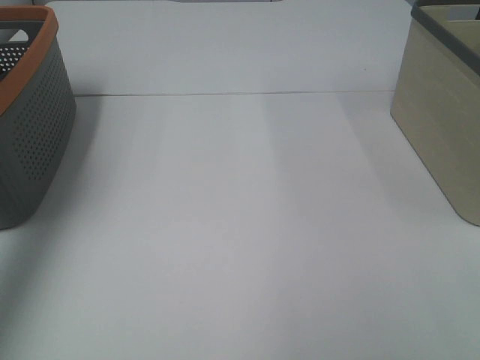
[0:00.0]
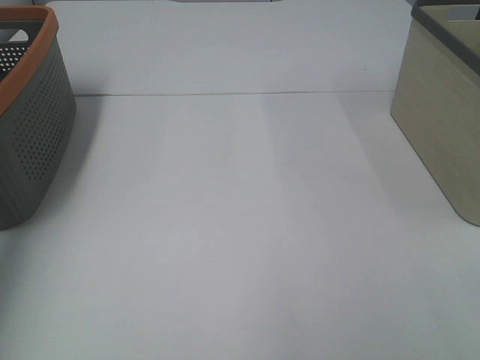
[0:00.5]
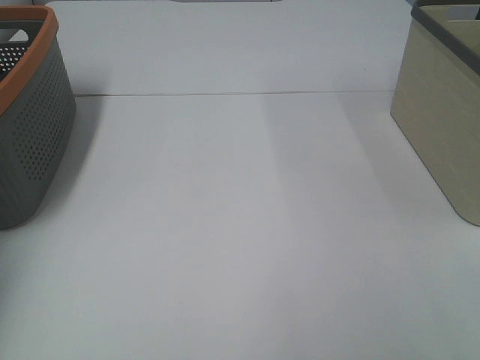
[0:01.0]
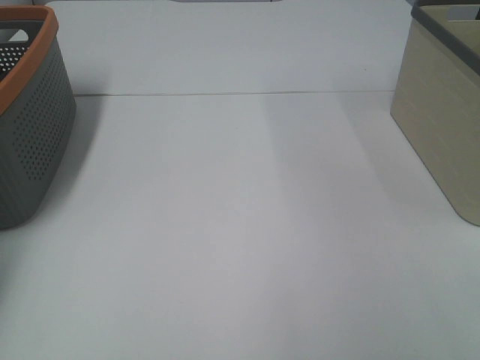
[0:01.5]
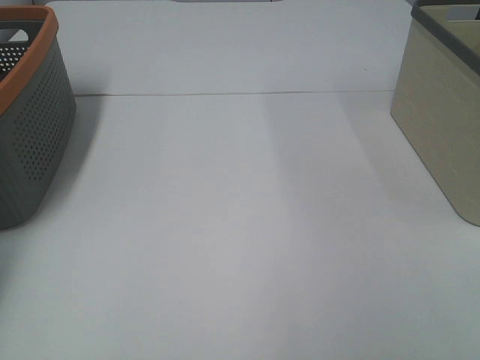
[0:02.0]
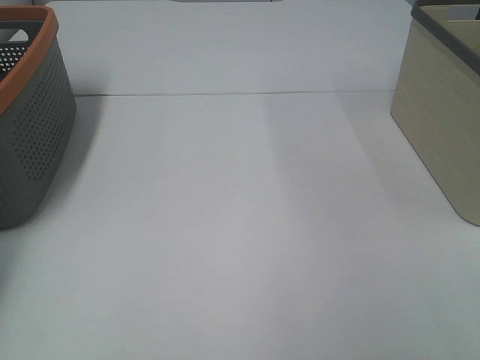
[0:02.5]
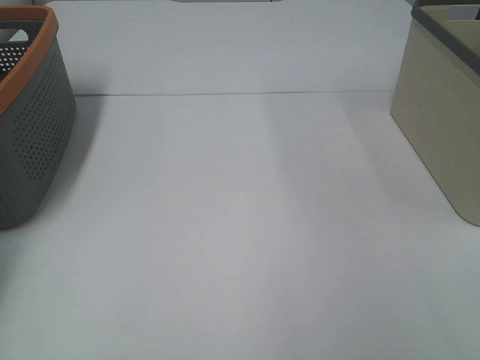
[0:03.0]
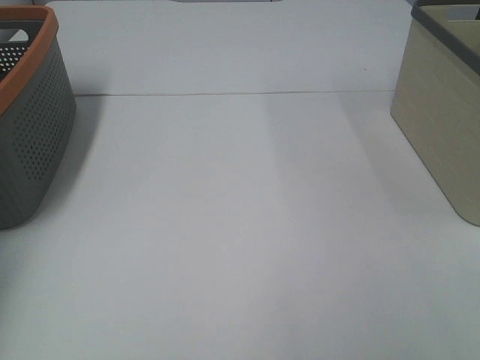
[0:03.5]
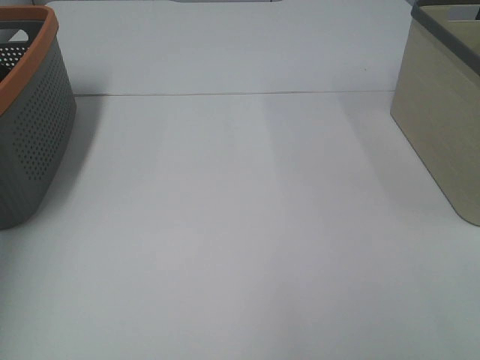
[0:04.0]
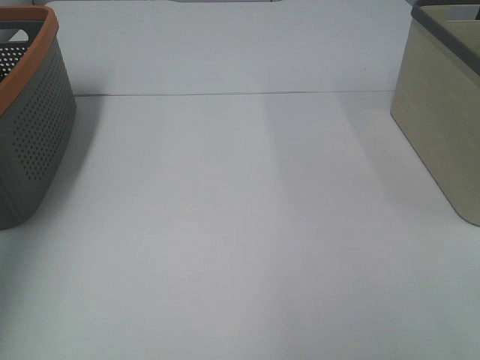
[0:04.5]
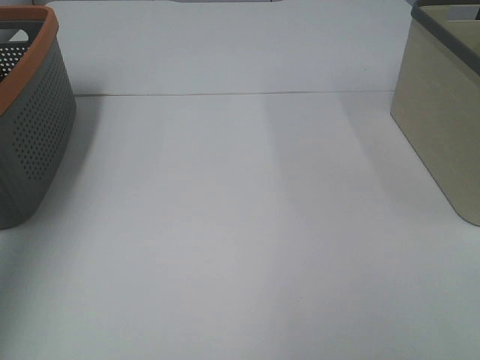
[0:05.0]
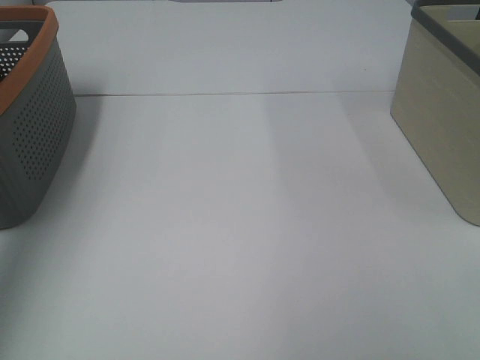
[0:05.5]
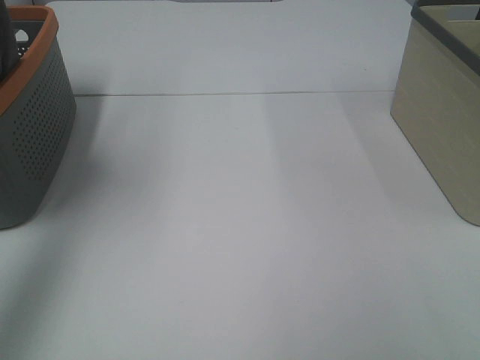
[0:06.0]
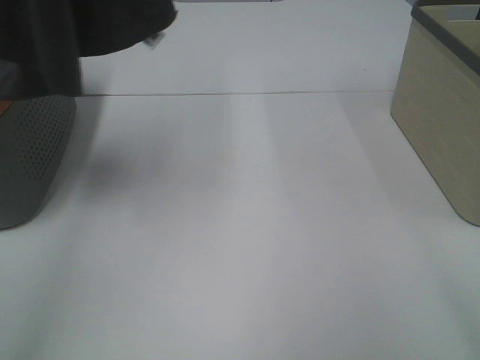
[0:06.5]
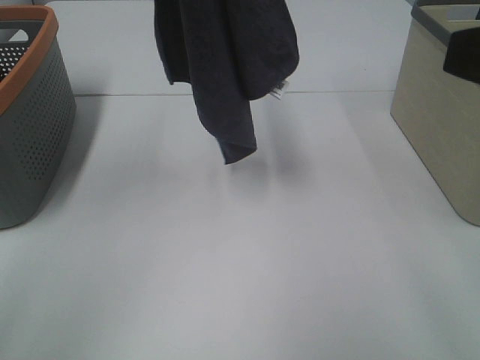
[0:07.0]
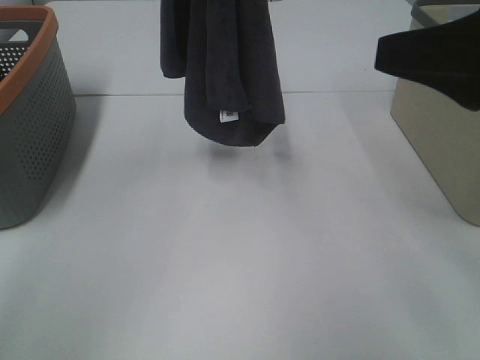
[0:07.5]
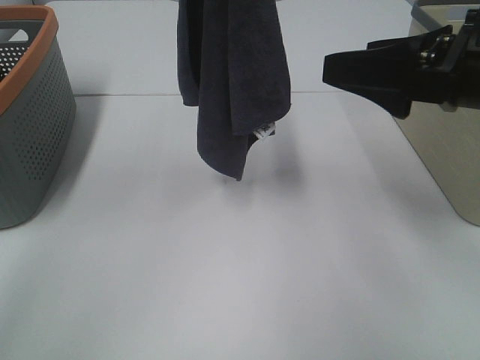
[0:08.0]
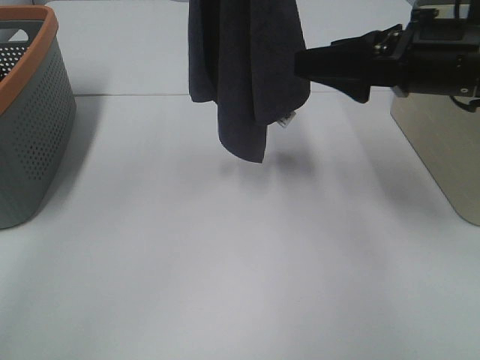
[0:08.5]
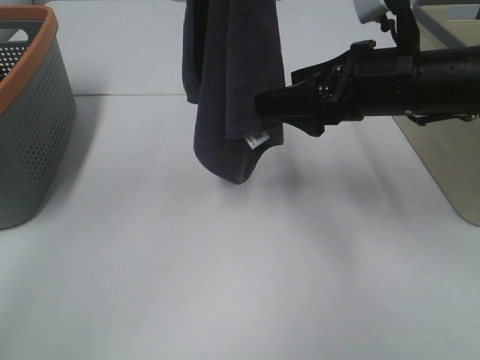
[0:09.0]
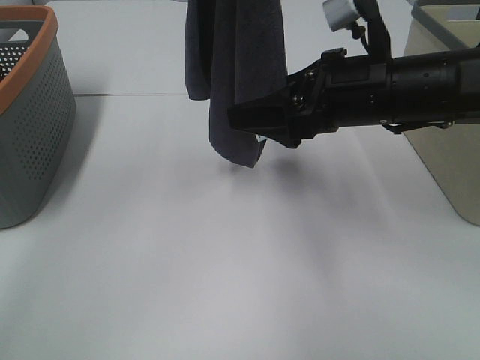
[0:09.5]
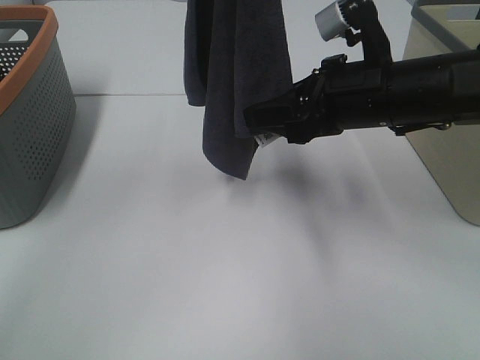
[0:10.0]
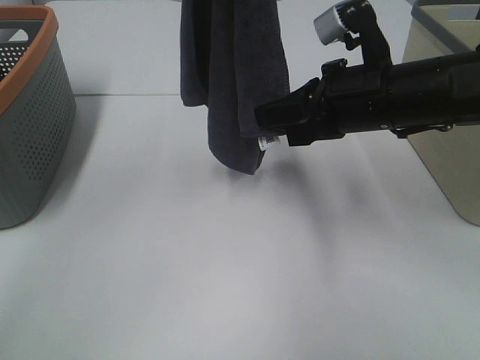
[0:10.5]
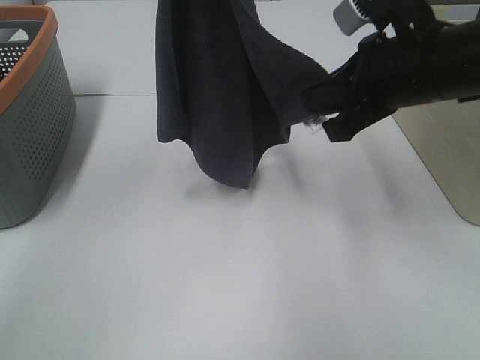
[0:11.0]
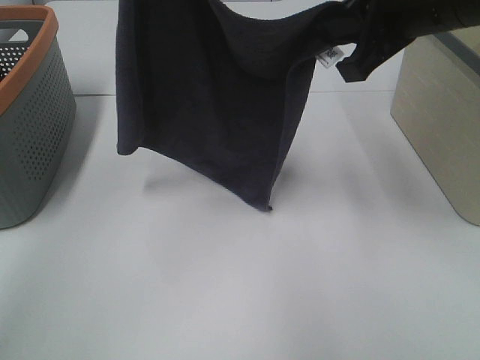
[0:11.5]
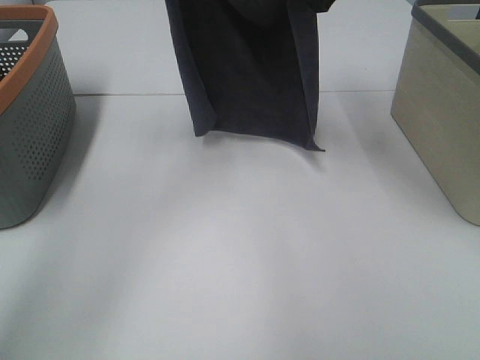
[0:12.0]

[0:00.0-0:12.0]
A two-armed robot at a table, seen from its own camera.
Task of the whole recording: Remove the towel and place it.
Step, 0:05.0 to 0:08.5: Right hand: grab a corner of the grey towel and straighten it.
Step, 0:09.0 to 0:11.5: Left hand: spread the grey towel flat on the table.
Step, 0:09.0 to 0:11.5: Right hand: spread the grey towel flat on the table.
0:00.0 to 0:02.0: The left gripper goes some 30 cm downward and forward, and closes up.
0:04.0 to 0:06.0: The left gripper moves to the right, upward and backward, approximately 15 cm.
0:06.0 to 0:08.0: The left gripper shifts approximately 15 cm to the right. The right gripper goes roughly 20 cm forward.
0:08.0 to 0:10.0: The right gripper shifts some 10 cm to the left, forward and downward, and closes its fingers.
0:10.0 to 0:12.0: The left gripper shifts some 15 cm forward and downward. The right gripper travels forward and upward by approximately 15 cm, and closes its fingers.

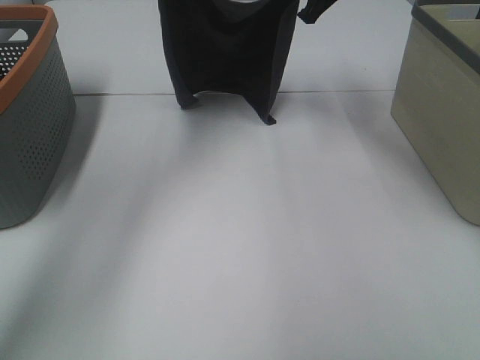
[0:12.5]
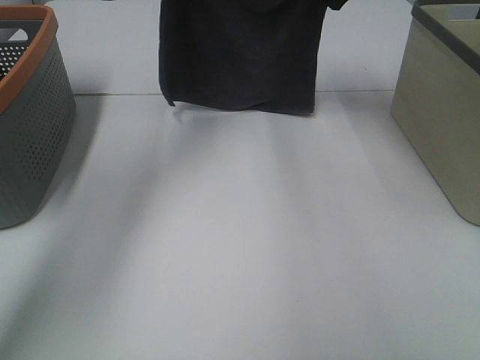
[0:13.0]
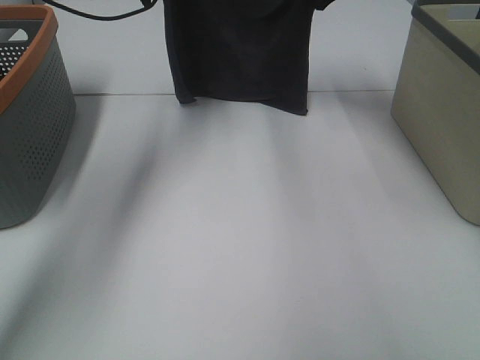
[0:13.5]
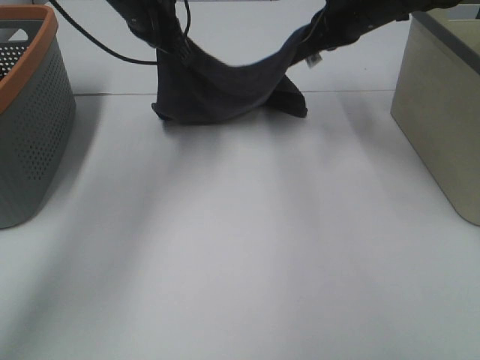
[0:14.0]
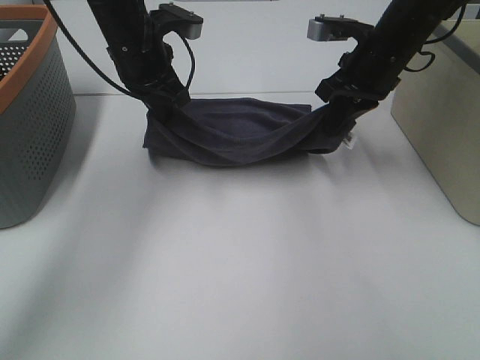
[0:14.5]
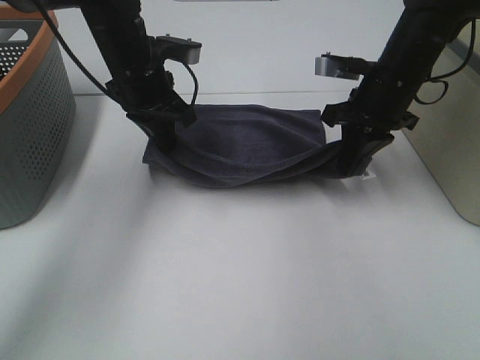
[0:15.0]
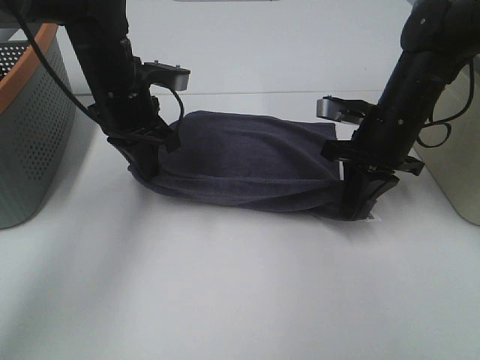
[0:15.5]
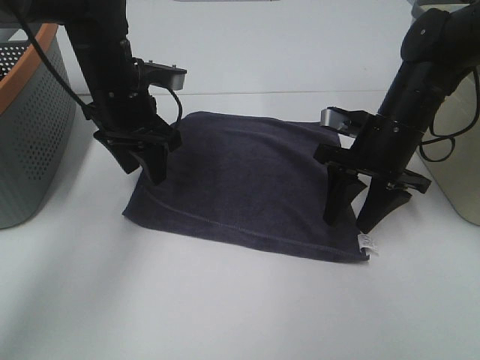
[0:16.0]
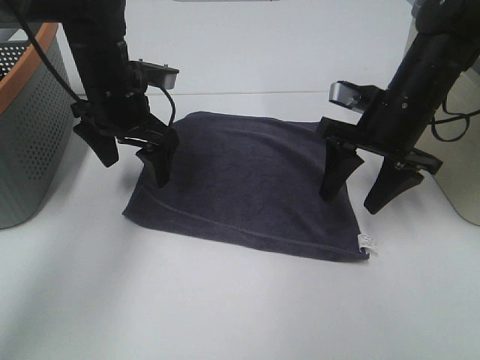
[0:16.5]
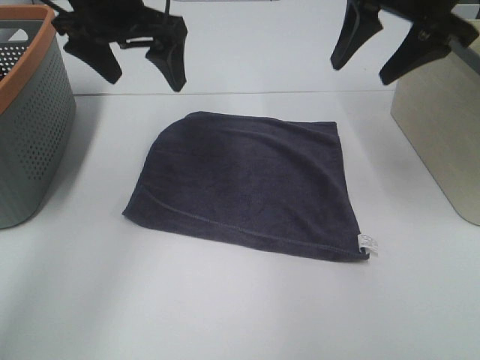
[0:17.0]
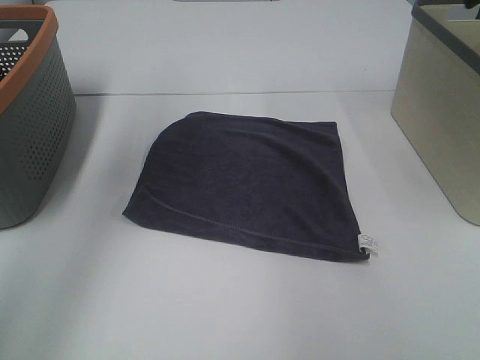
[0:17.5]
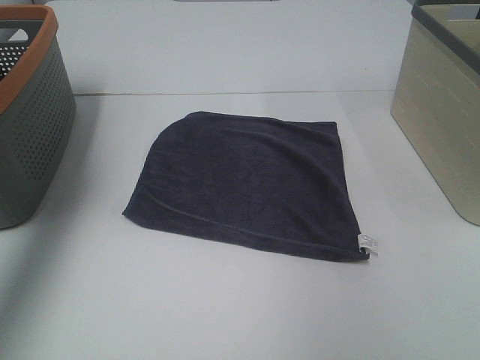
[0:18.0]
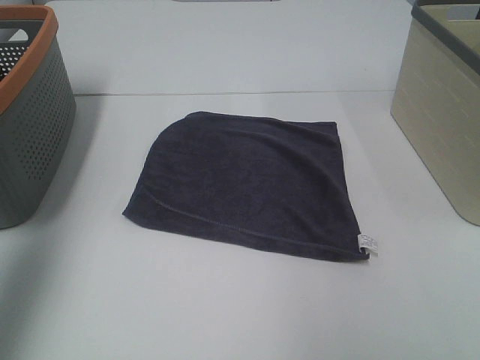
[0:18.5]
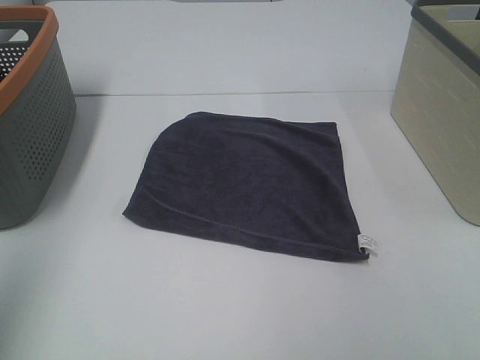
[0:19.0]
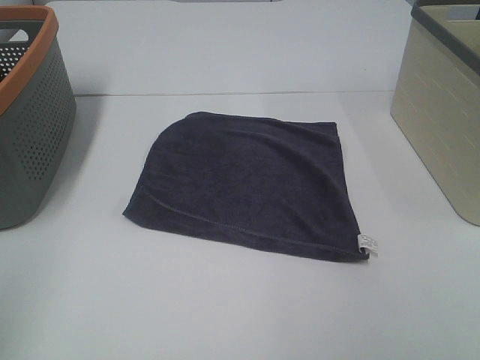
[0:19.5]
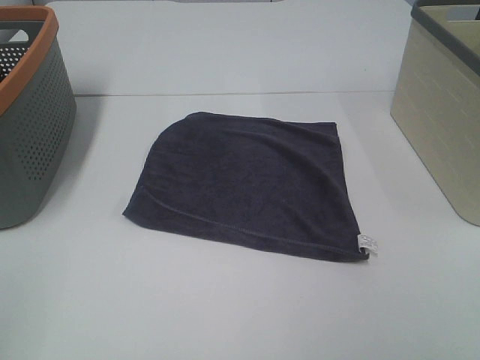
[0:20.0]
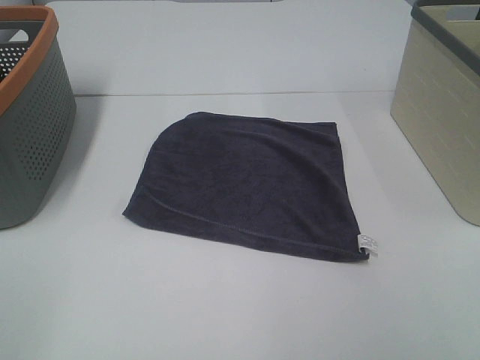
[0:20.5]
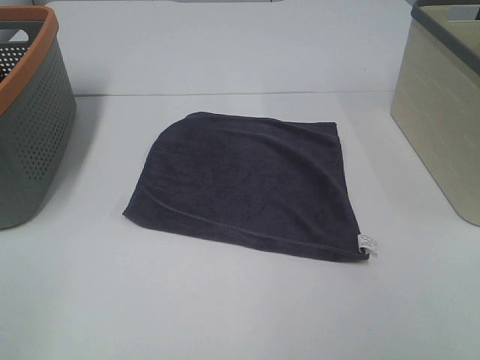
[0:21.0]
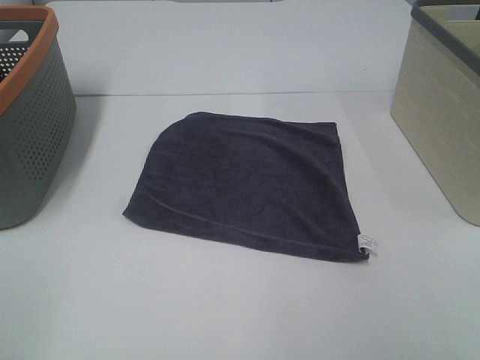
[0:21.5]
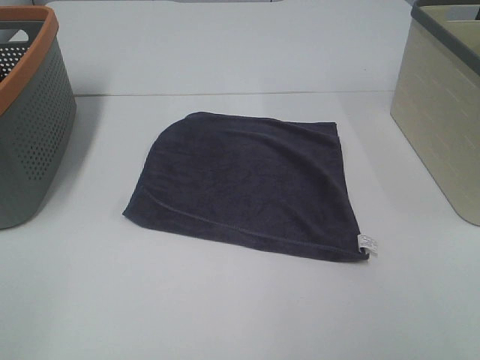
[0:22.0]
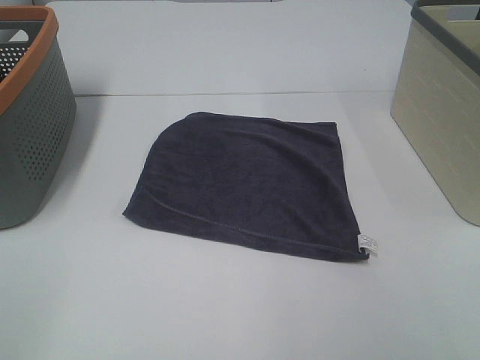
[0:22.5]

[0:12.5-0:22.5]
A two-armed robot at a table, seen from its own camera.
Task of the whole recording: Remove the towel and place it.
0:12.5 to 0:14.5: Both grippers travel together downward and backward, some 10 cm.
0:14.5 to 0:16.5: The left gripper shifts by roughly 5 cm, and opens its fingers. Meanwhile the right gripper moves backward, roughly 5 cm, and opens.
0:16.5 to 0:18.5: The right gripper is displaced backward, upward and to the right by about 30 cm. Meanwhile the left gripper shifts about 35 cm upward, backward and to the left.
0:18.5 to 0:20.5: The left gripper is displaced backward and downward by about 25 cm.
0:20.5 to 0:22.5: Both grippers stay about where they are.
